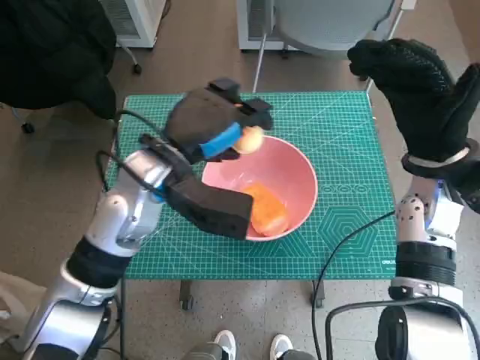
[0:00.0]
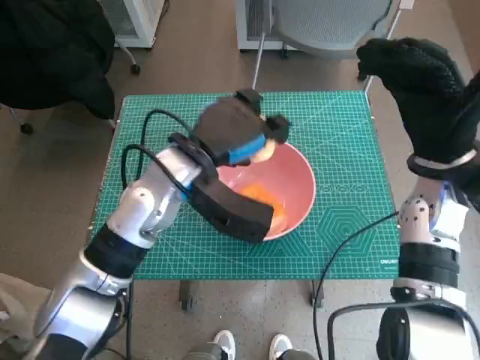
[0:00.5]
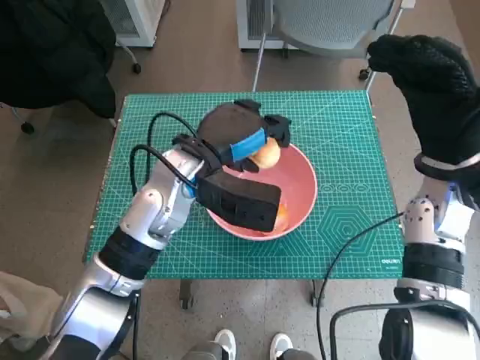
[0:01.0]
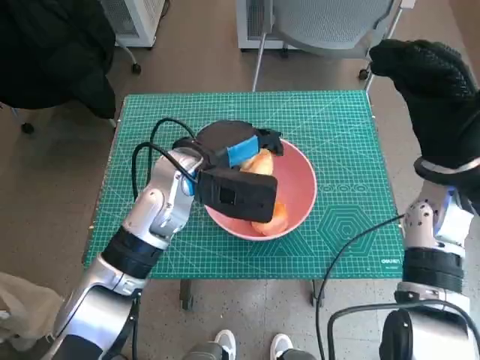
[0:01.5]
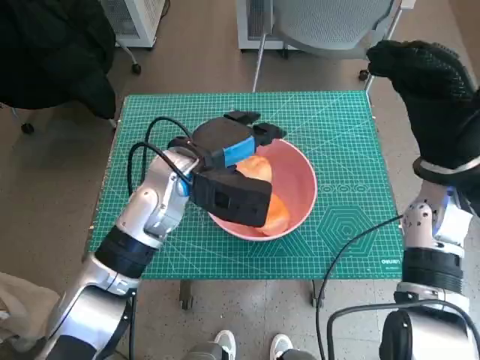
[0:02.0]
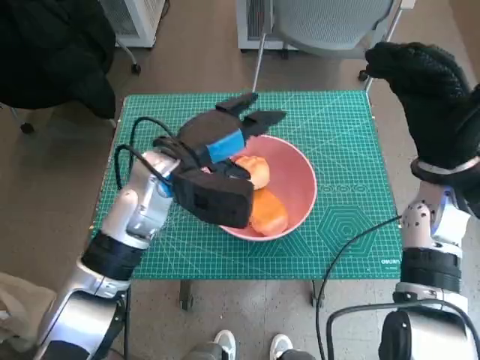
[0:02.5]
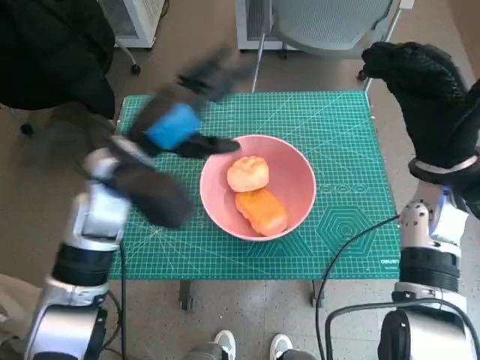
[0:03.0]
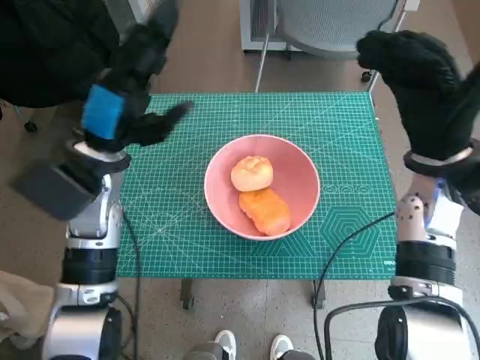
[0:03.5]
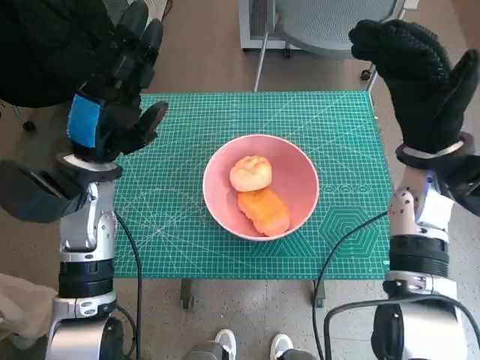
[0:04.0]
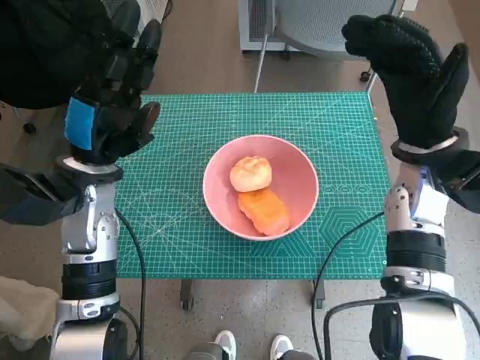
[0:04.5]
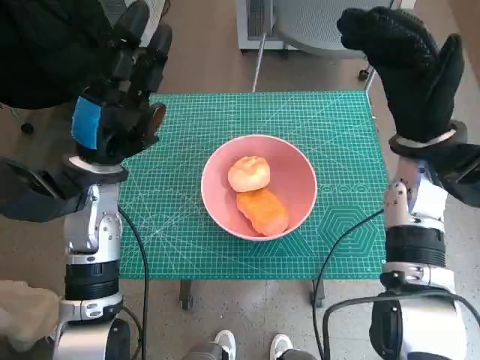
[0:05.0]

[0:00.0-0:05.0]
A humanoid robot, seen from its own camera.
Step, 0:00.0 to 0:02.0: Place the round bread in pink bowl with left hand.
0:02.5 to 0:05.0: The left hand travels to the left by about 10 cm.

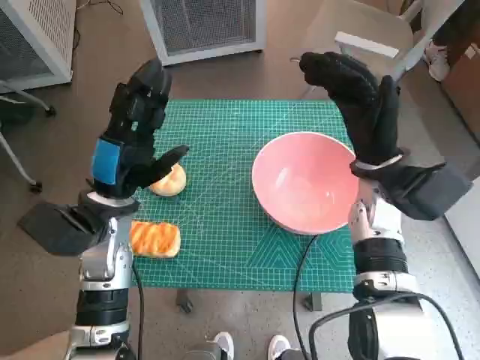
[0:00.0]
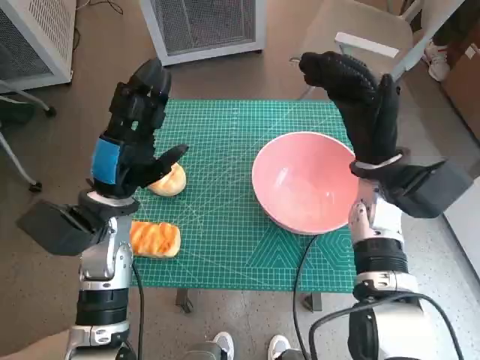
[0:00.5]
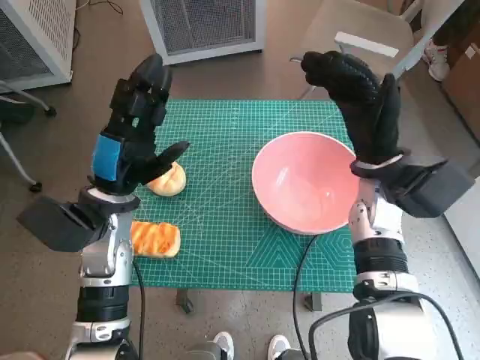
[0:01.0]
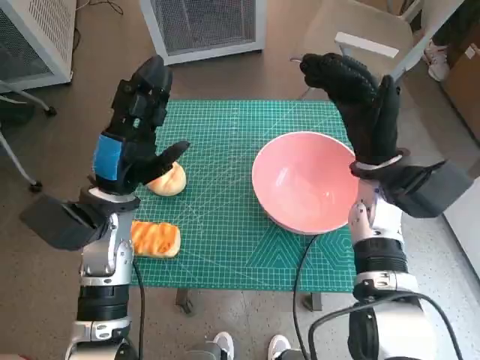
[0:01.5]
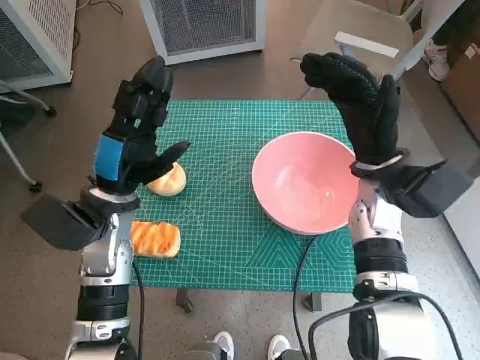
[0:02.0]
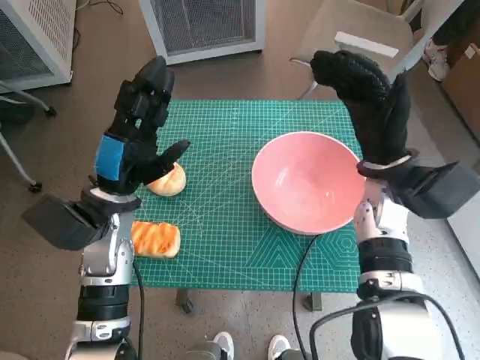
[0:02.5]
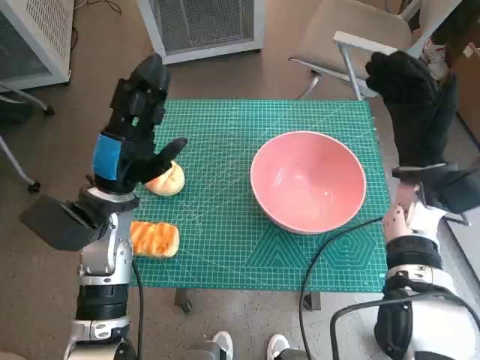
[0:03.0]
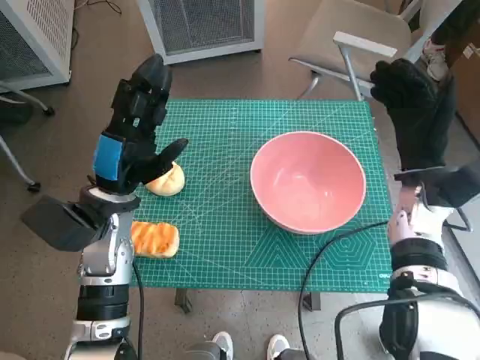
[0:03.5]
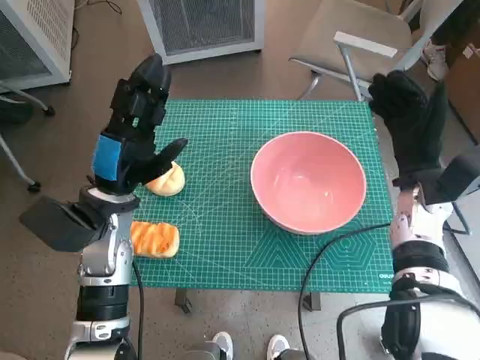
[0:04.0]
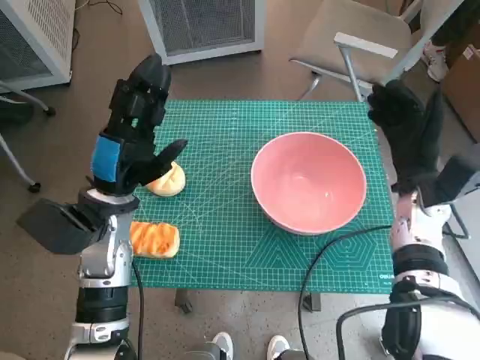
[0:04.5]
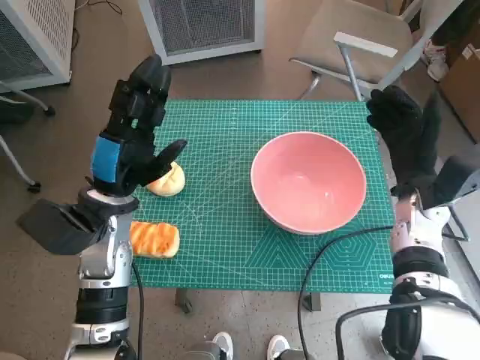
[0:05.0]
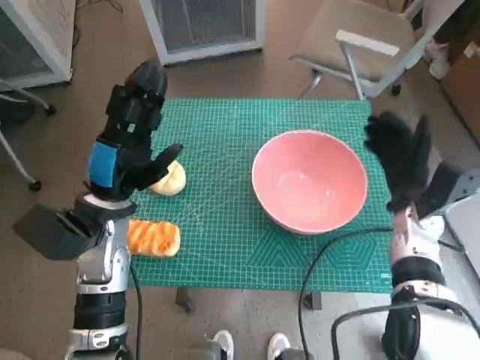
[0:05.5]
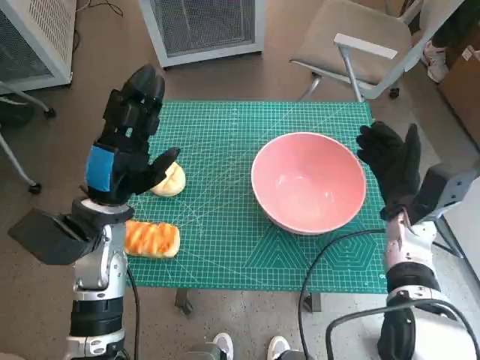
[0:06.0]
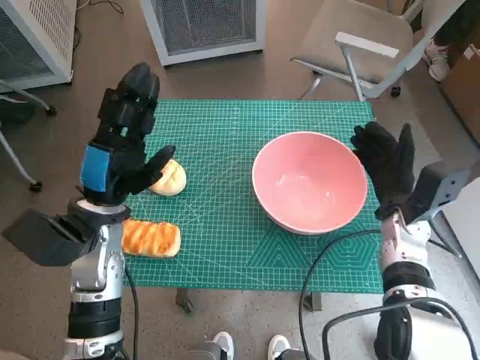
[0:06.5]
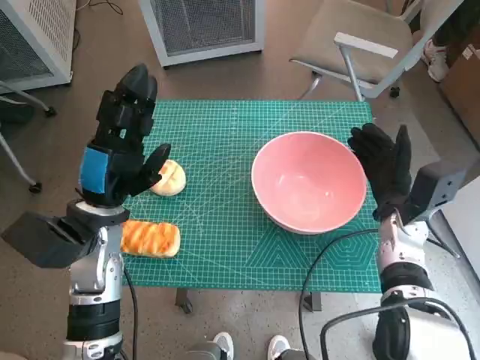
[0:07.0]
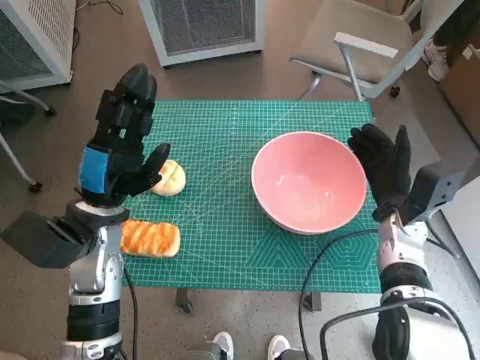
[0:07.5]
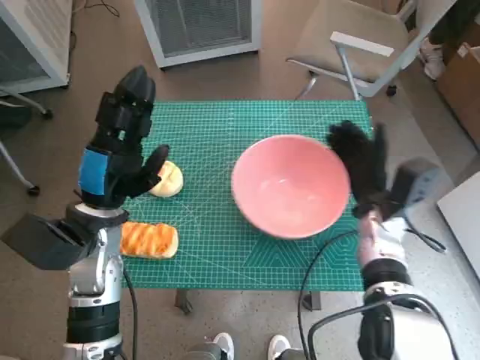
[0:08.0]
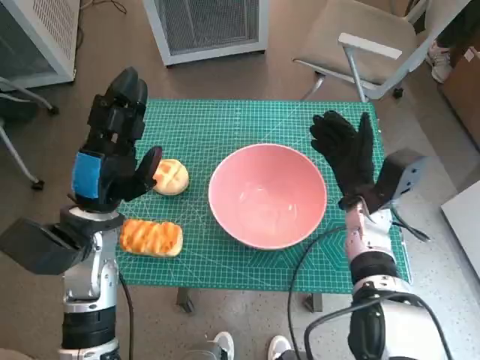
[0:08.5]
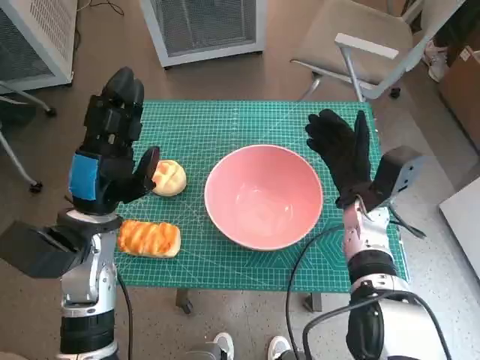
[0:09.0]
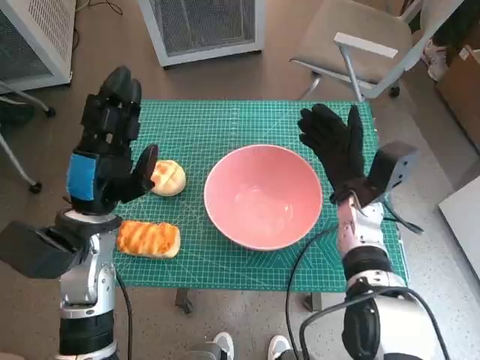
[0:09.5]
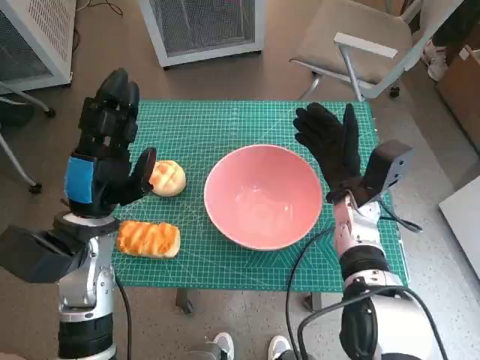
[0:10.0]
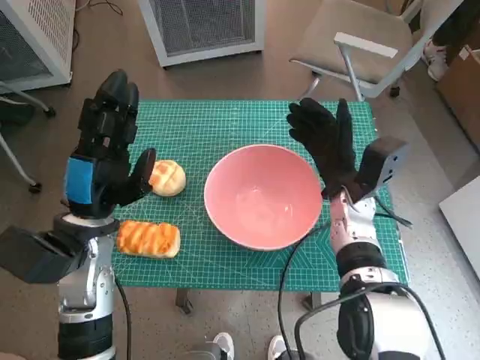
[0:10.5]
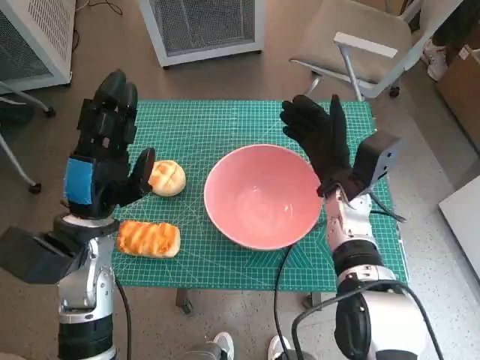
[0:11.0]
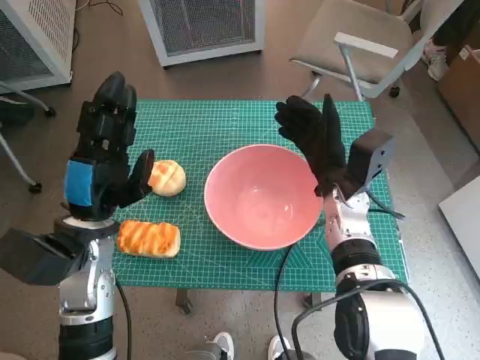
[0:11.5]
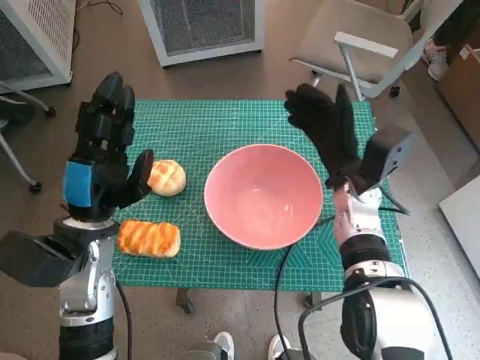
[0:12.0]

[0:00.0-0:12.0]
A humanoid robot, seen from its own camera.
Step, 0:00.0 to 0:11.5: Move the pink bowl to the center of table with right hand.
0:02.0 to 0:04.0: The right hand goes roughly 5 cm to the right.
0:04.0 to 0:06.0: The right hand goes about 5 cm downward.
0:08.0 to 0:10.0: The right hand ends up roughly 5 cm from where it was.
0:10.0 to 0:12.0: There are only small adjustments of the hands.

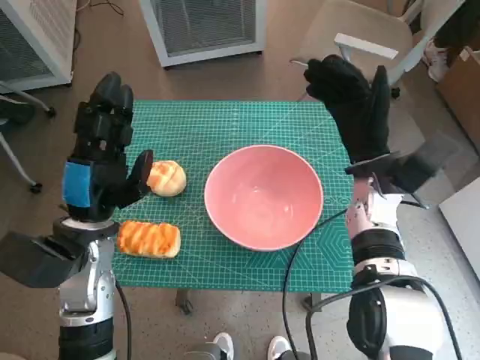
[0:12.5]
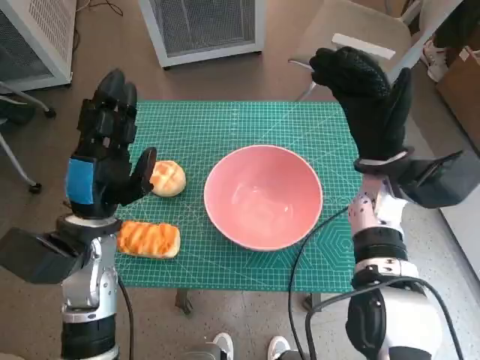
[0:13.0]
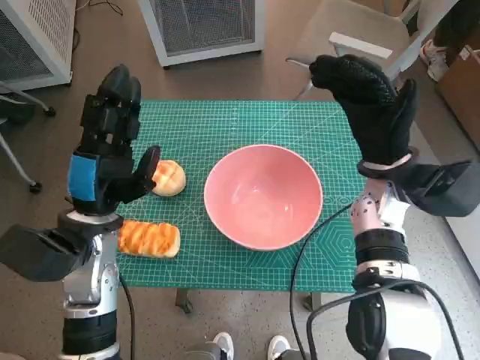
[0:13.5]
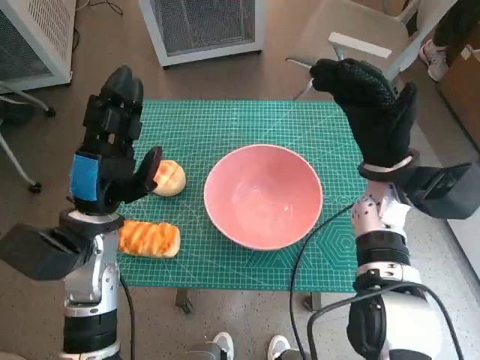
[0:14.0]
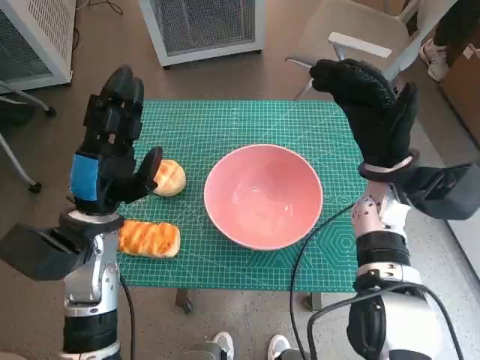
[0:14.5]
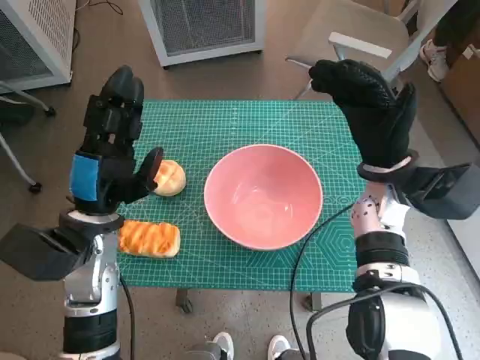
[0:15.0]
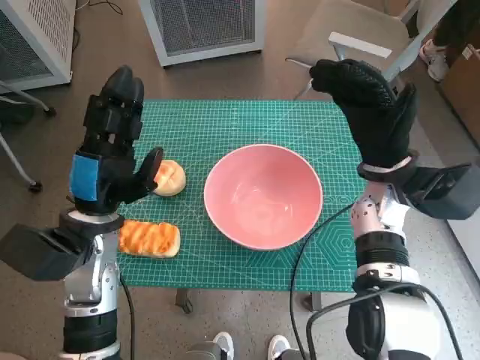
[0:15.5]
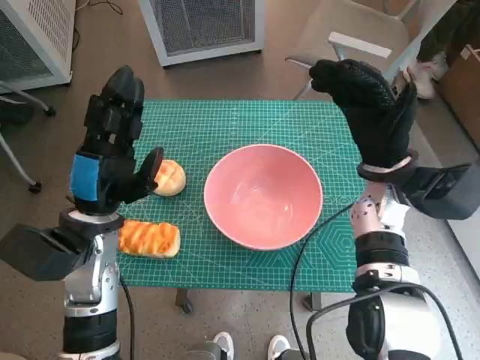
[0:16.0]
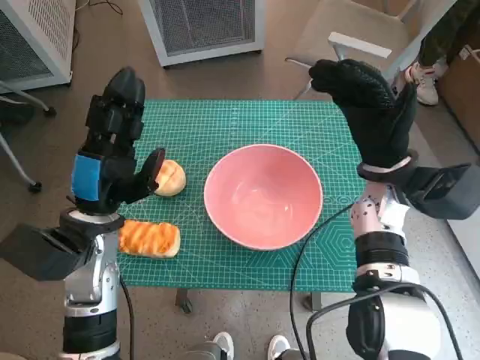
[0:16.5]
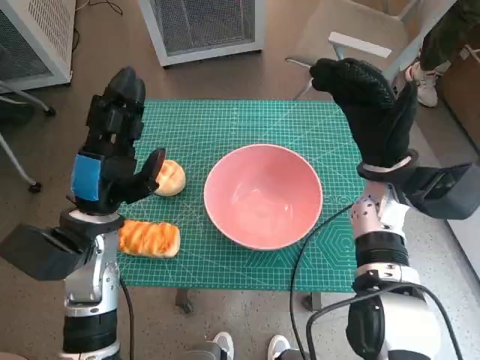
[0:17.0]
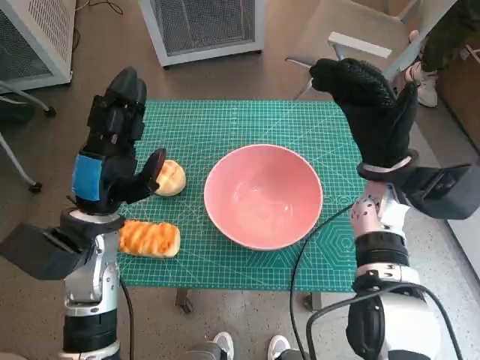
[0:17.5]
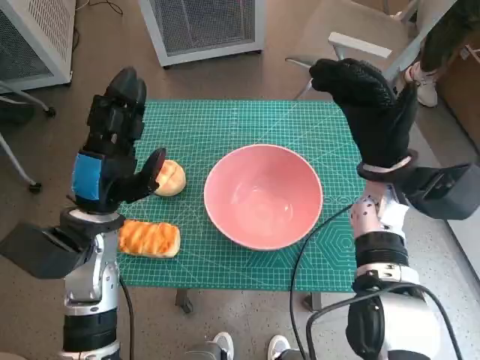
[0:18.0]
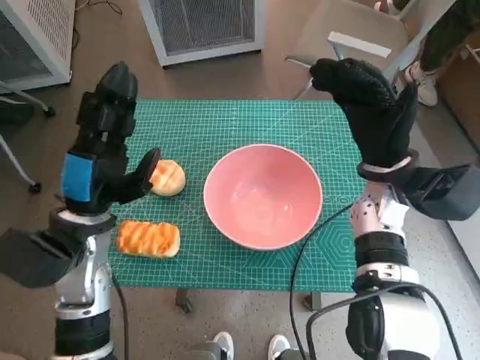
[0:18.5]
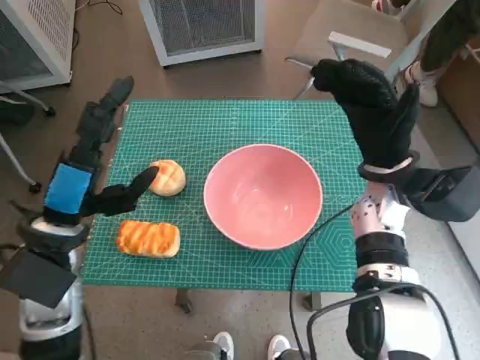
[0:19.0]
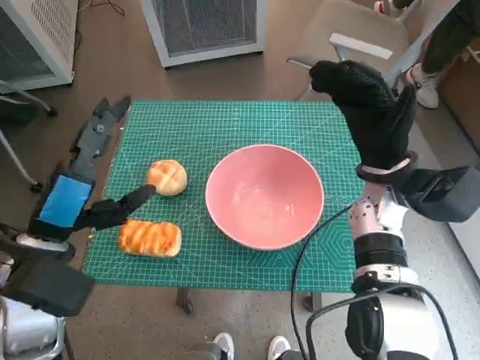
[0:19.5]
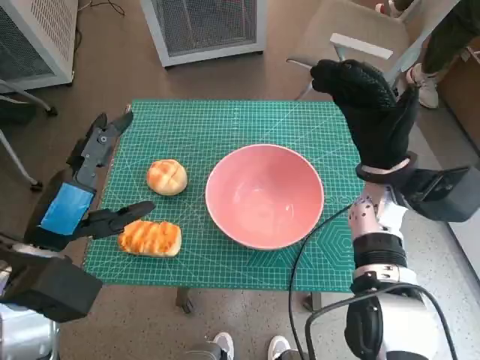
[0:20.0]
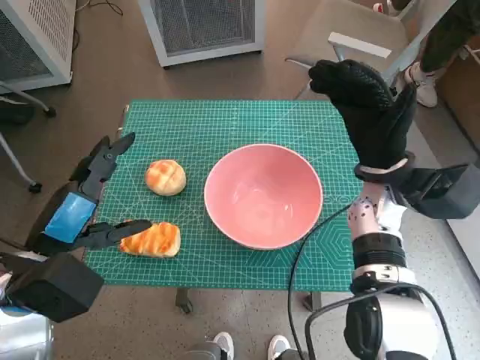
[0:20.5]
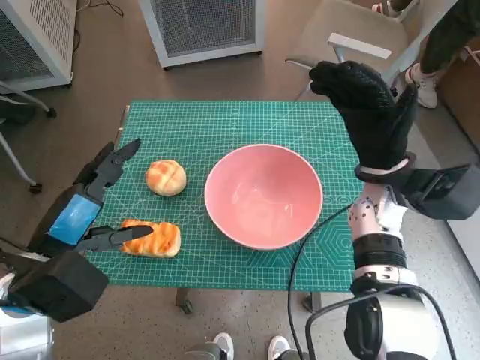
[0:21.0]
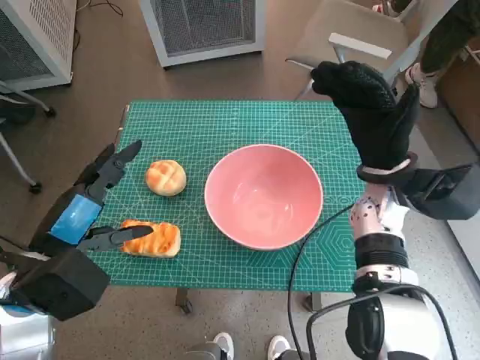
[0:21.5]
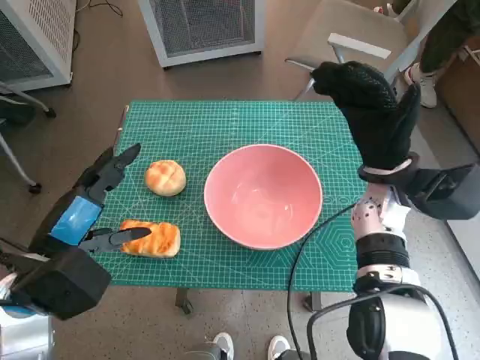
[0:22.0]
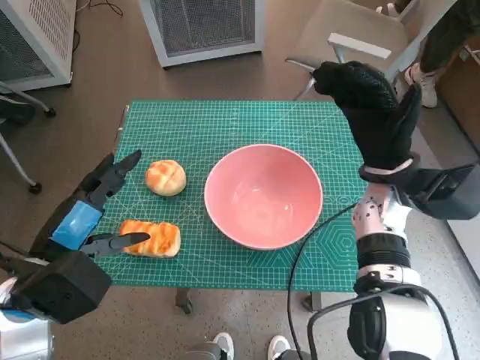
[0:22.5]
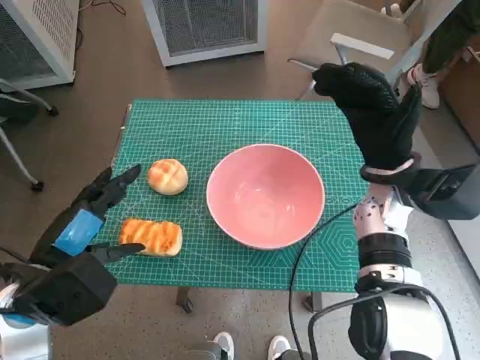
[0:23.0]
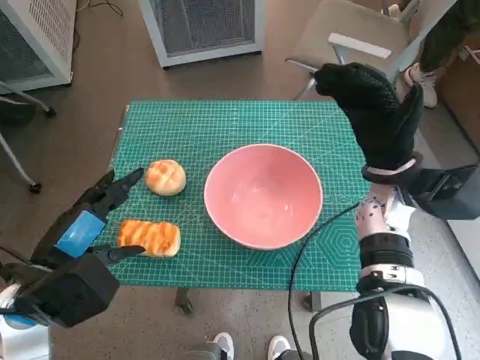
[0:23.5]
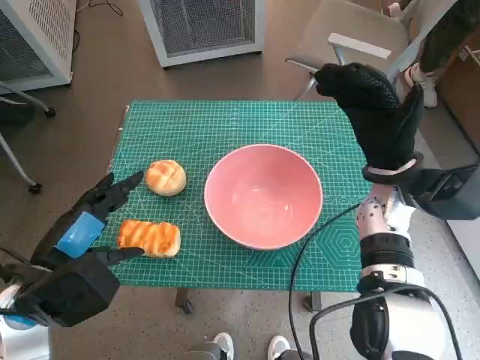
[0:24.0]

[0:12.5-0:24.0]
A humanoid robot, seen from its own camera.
0:14.5 to 0:18.5: Both hands stay about where they are.
0:18.5 to 0:20.0: The left hand heads backward, covering roughly 5 cm.
0:20.0 to 0:22.0: There are only small adjustments of the hands.
0:22.0 to 0:24.0: The hands make only small movements.
